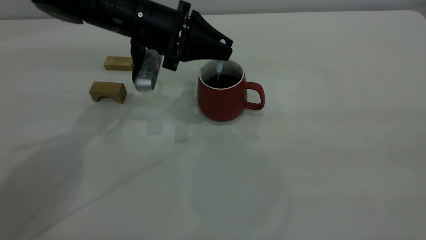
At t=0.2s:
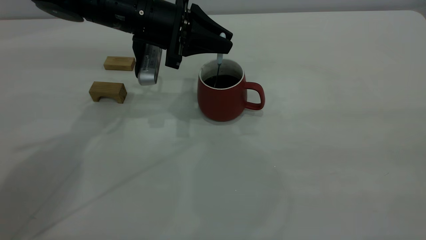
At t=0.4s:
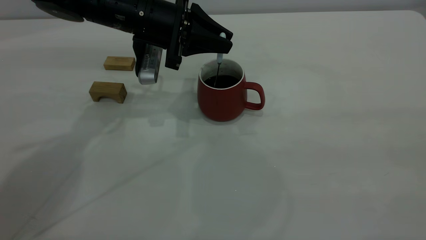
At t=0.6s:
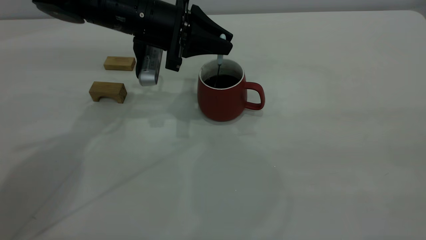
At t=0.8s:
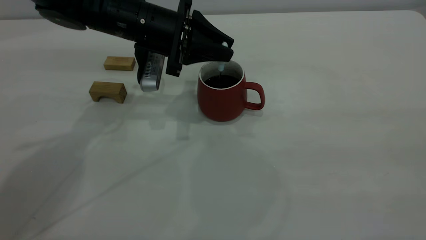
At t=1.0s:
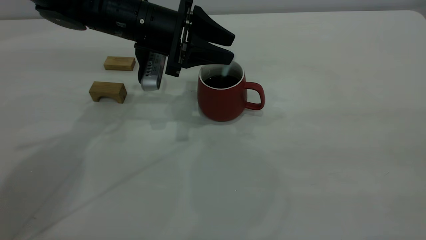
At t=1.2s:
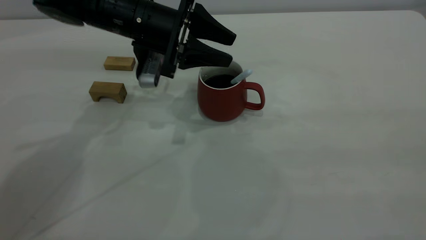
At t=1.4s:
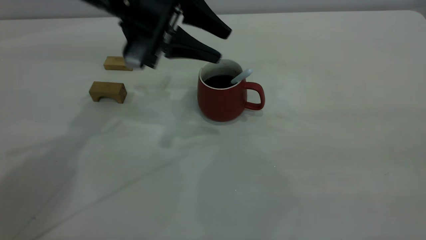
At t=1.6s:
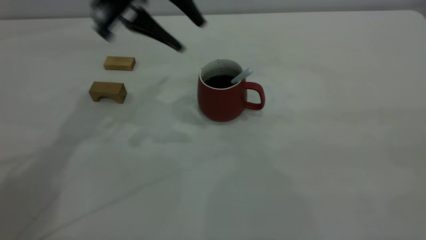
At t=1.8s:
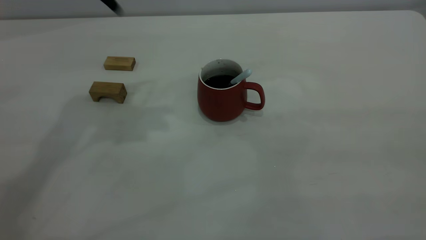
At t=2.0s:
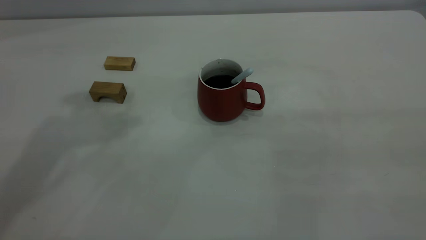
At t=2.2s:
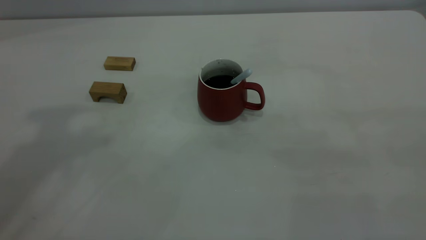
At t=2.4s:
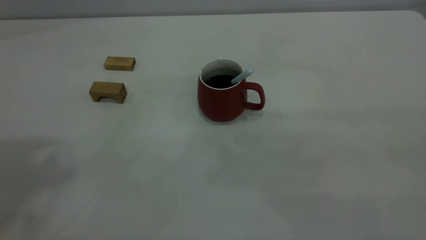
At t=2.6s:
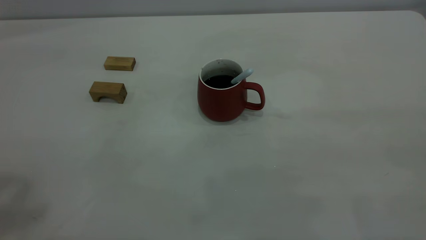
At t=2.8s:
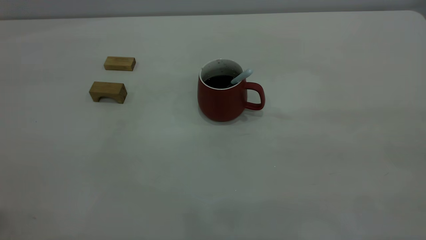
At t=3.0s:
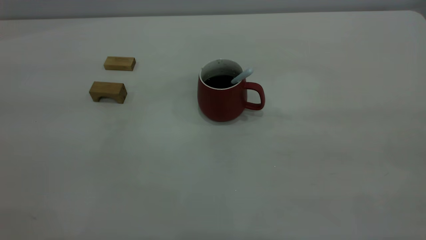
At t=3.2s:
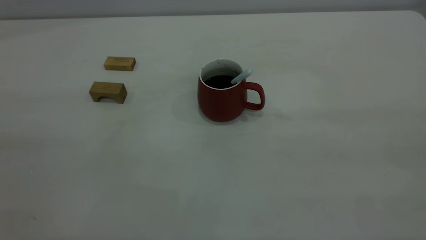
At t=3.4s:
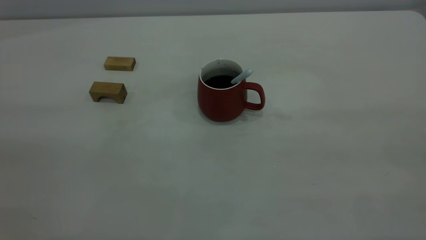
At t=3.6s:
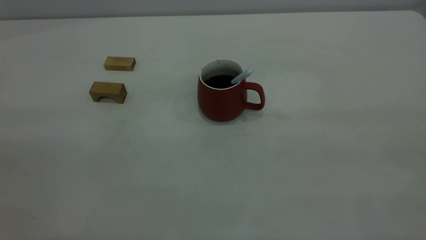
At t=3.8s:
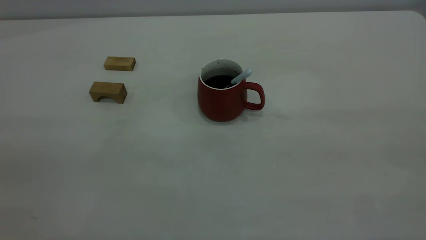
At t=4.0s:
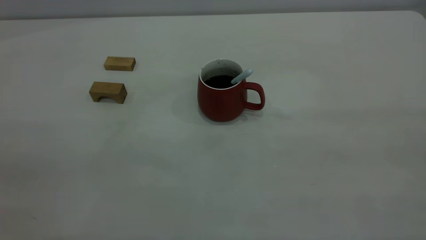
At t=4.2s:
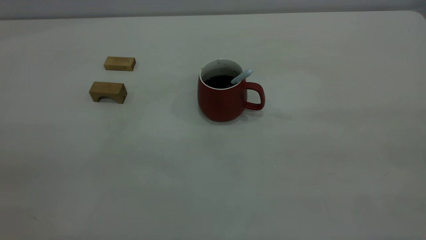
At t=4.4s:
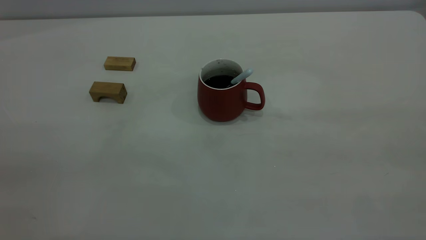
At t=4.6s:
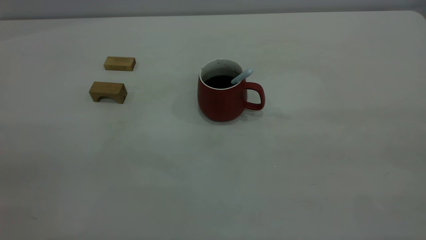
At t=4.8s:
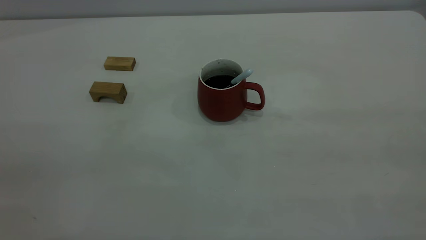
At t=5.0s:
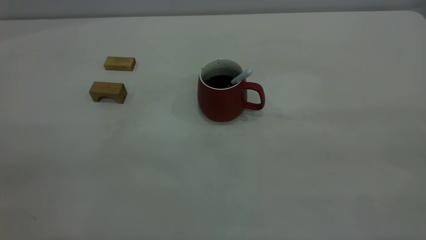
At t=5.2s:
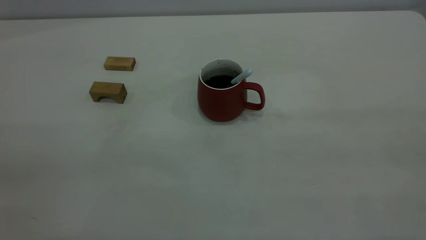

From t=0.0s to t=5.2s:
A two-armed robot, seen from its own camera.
From t=0.0s to t=1.8s: The left gripper moves upward, some 20 cm, and opens.
